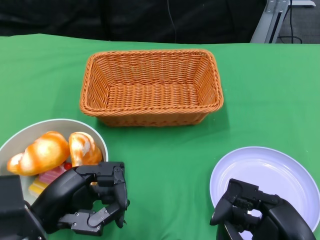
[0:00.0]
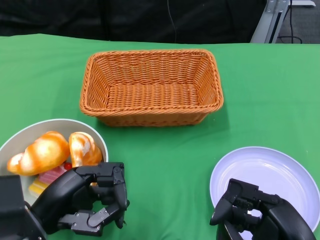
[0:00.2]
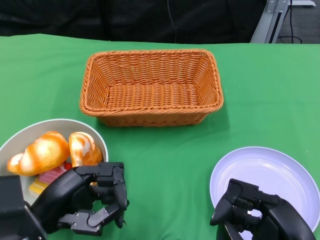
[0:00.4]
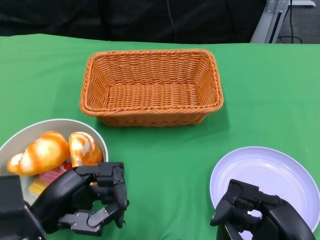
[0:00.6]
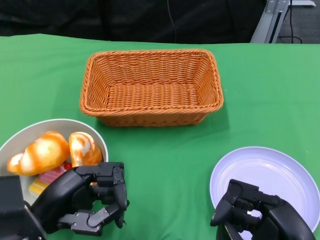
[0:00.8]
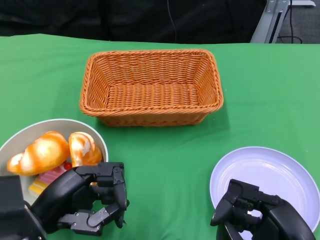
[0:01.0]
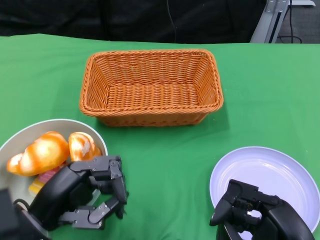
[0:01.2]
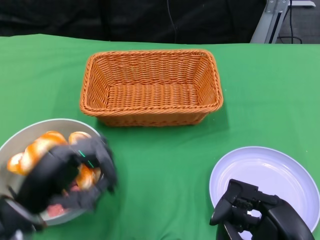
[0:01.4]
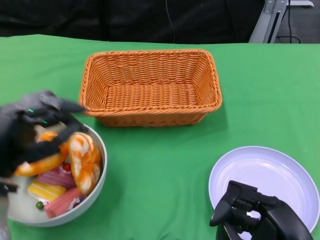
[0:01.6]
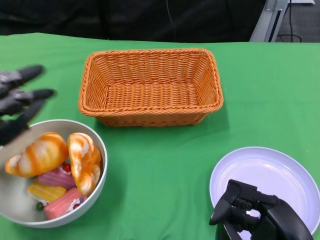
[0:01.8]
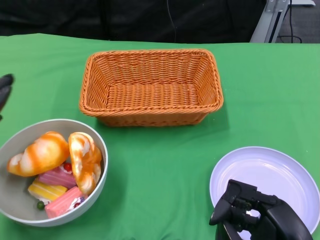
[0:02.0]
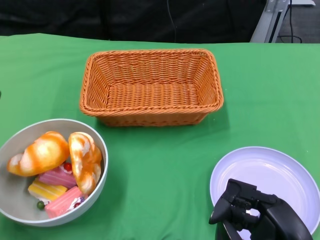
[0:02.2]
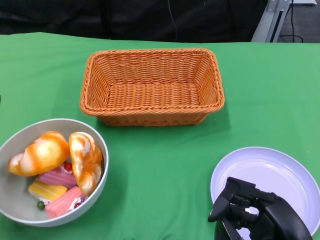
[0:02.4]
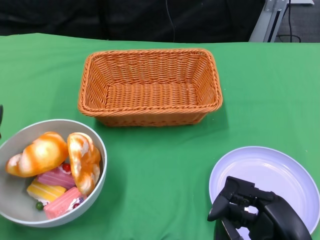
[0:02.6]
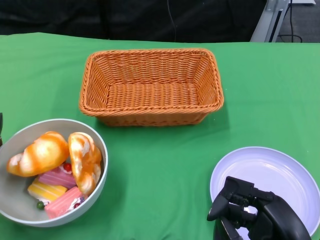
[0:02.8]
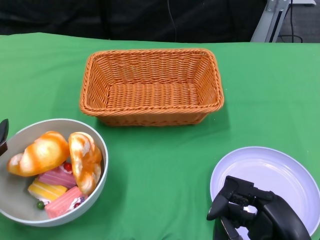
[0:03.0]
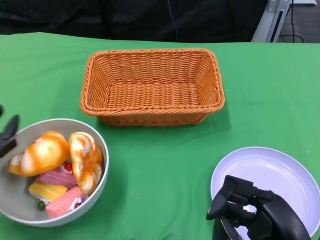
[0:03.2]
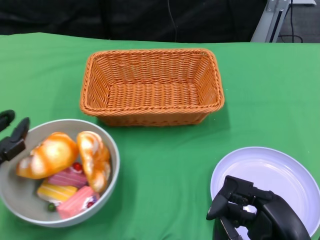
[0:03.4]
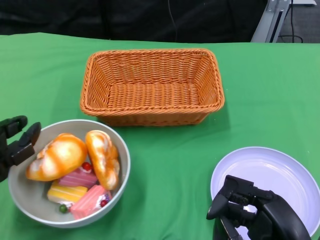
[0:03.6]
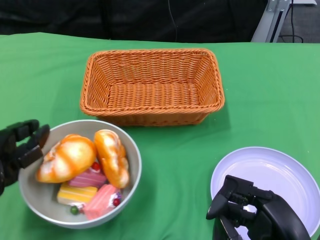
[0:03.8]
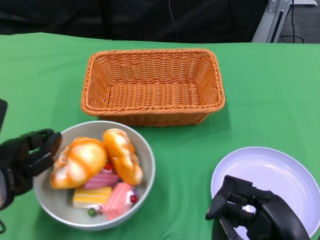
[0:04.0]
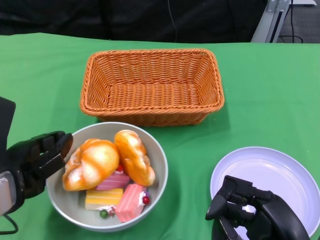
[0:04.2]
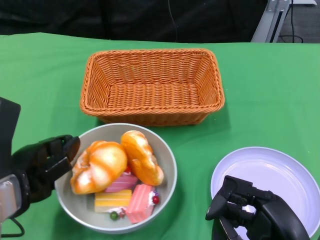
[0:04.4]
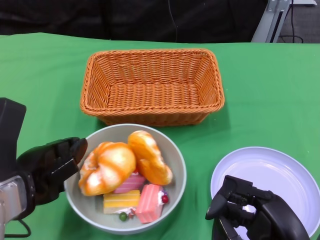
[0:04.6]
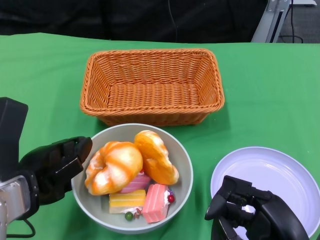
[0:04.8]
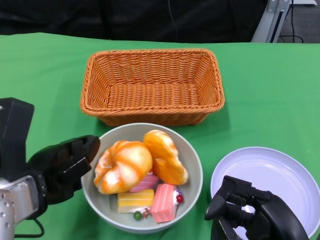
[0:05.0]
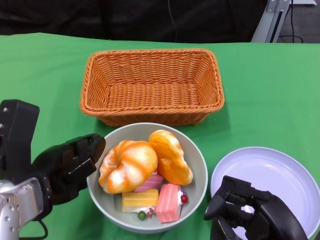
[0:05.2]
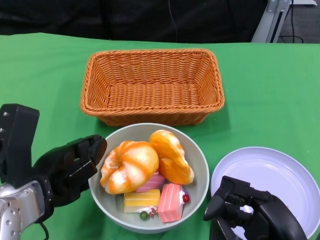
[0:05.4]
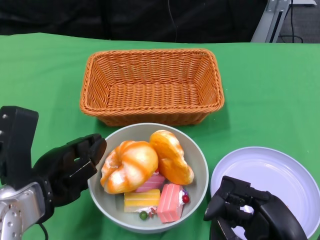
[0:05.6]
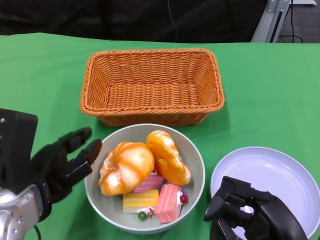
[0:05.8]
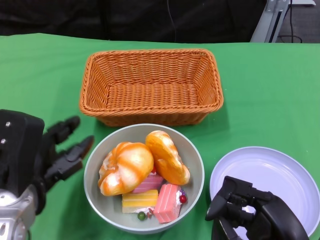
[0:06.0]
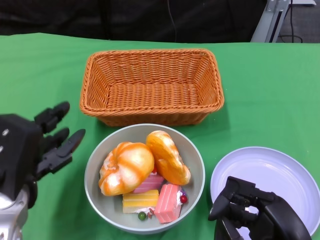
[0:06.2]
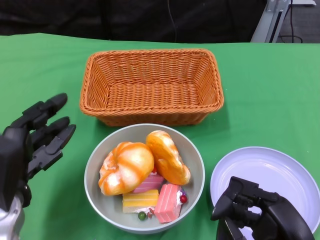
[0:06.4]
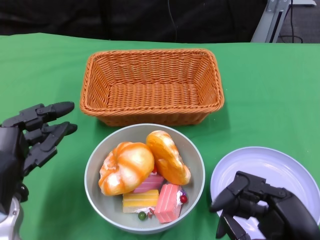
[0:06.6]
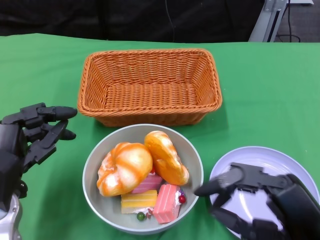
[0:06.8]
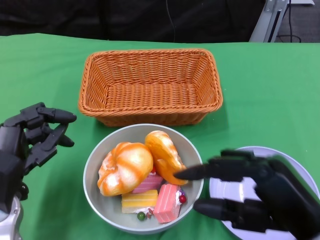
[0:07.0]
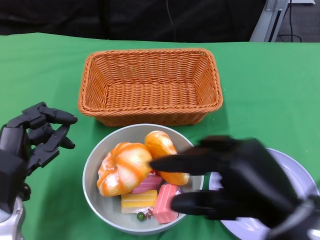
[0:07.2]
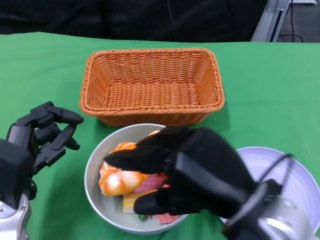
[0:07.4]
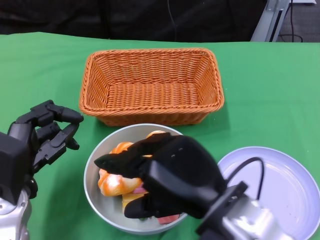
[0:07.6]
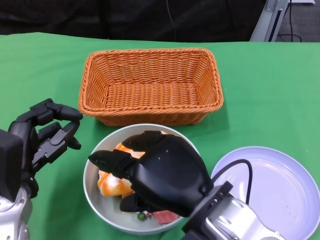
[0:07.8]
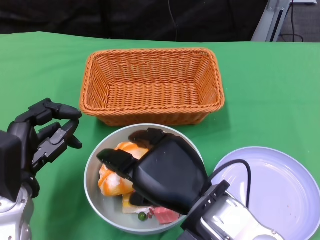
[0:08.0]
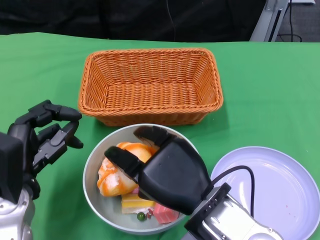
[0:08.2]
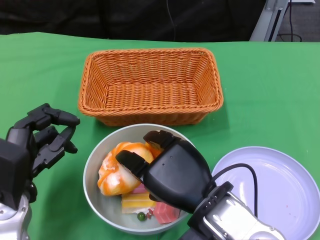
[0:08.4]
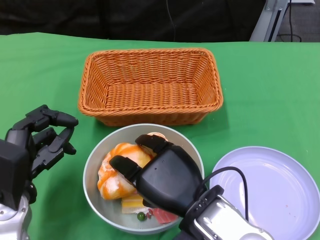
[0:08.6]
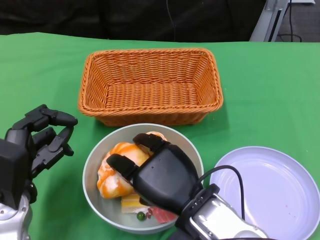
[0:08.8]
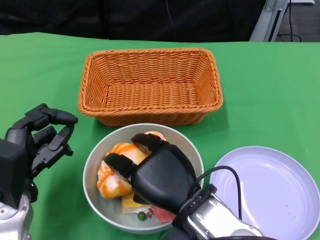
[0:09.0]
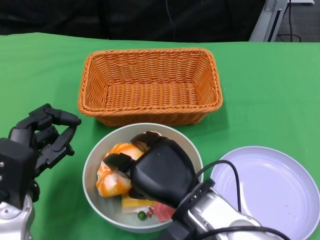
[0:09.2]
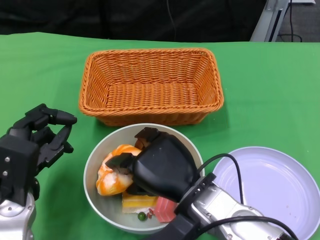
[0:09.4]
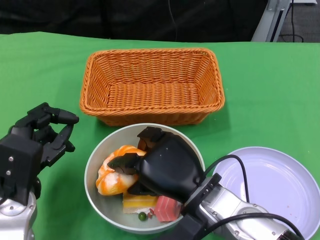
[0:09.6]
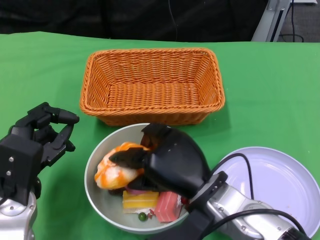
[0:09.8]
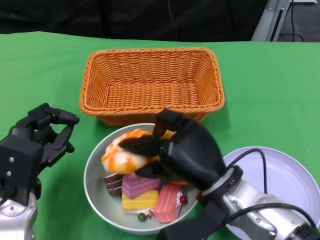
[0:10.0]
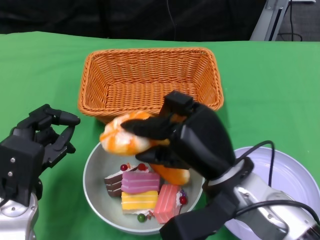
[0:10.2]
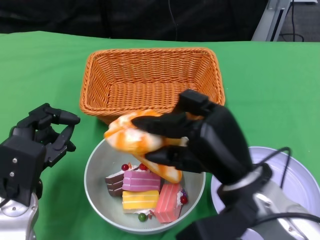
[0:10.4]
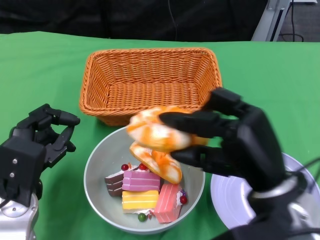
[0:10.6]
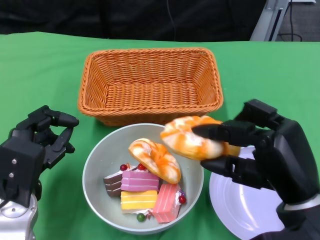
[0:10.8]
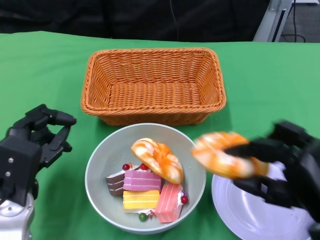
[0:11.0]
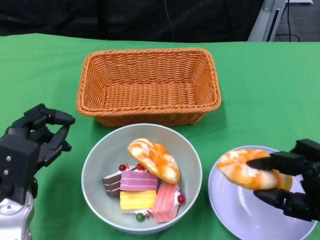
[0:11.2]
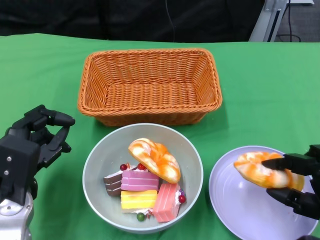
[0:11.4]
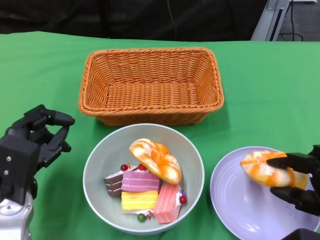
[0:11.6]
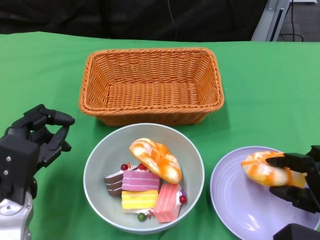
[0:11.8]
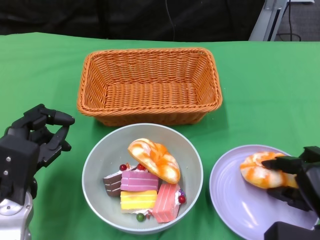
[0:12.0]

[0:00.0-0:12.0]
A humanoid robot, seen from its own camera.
Step, 0:00.0 to 0:06.0: Push the bowl to the center of the table using the left gripper.
0:01.6 to 0:03.0: The left hand ends up approximately 10 cm from where it was.
0:03.0 to 0:04.4: The left hand goes about 5 cm to the right.
0:06.0 to 0:07.6: The right hand shifts roughly 15 cm to the left and upward.
0:07.6 to 0:09.0: The right hand is displaced downward by some 5 cm.
0:09.0 to 0:10.4: The right hand moves to the right, some 5 cm.
0:10.4 to 0:12.0: The right hand is displaced to the right and downward by some 20 cm.

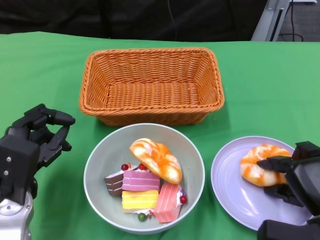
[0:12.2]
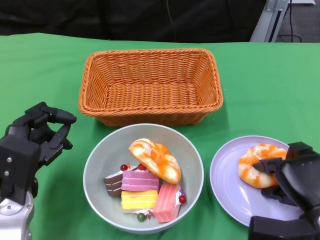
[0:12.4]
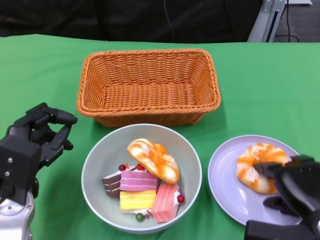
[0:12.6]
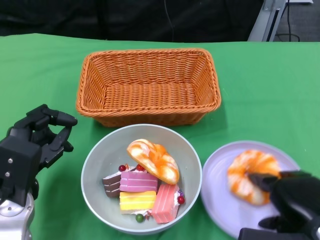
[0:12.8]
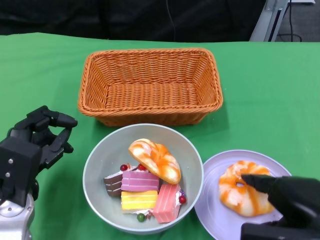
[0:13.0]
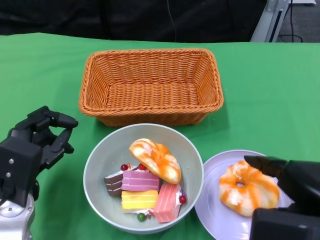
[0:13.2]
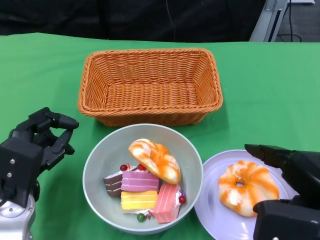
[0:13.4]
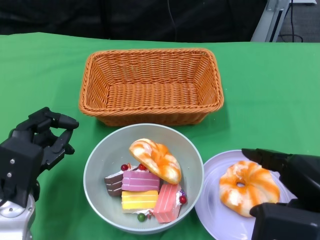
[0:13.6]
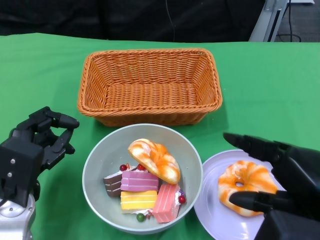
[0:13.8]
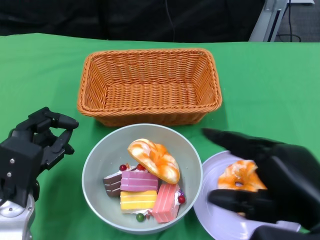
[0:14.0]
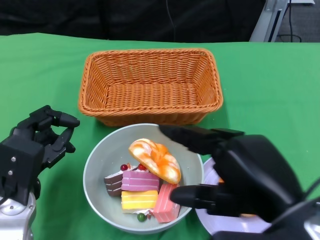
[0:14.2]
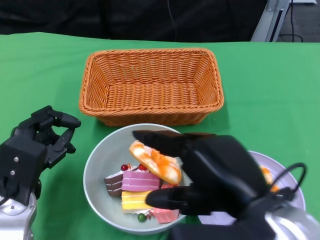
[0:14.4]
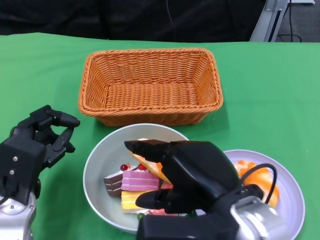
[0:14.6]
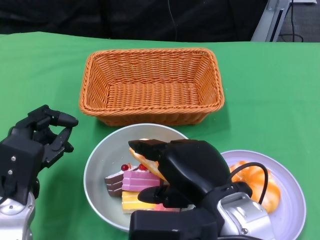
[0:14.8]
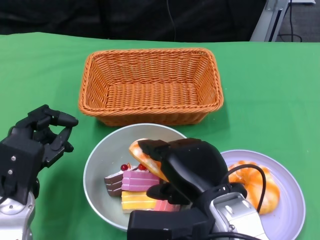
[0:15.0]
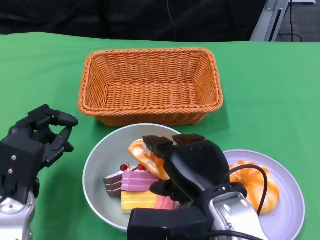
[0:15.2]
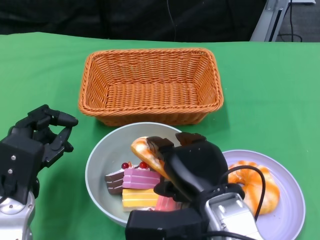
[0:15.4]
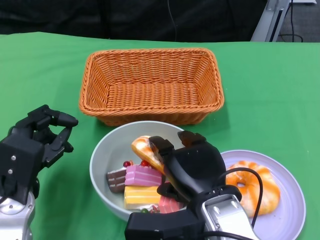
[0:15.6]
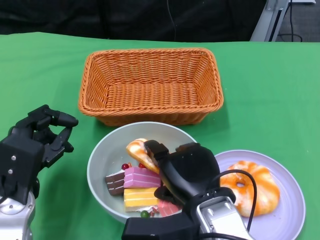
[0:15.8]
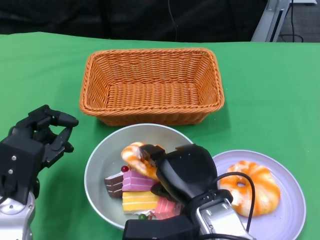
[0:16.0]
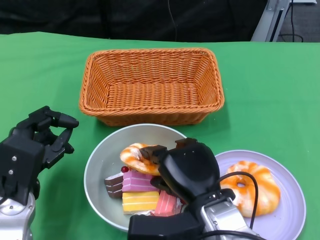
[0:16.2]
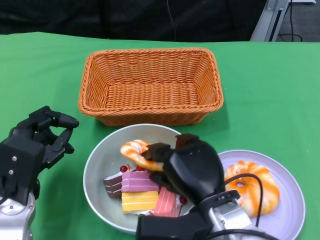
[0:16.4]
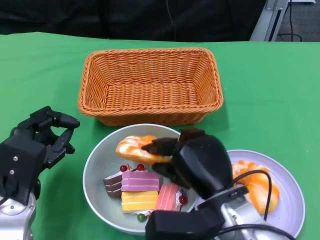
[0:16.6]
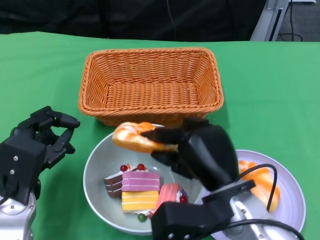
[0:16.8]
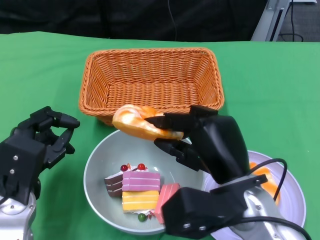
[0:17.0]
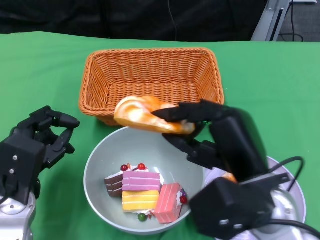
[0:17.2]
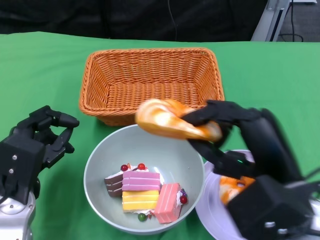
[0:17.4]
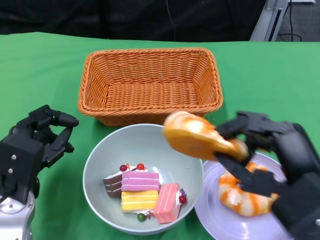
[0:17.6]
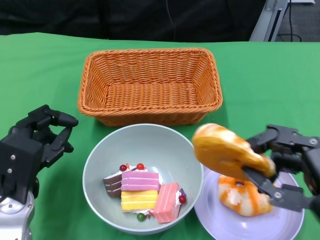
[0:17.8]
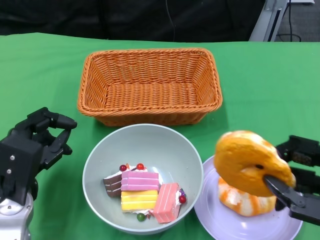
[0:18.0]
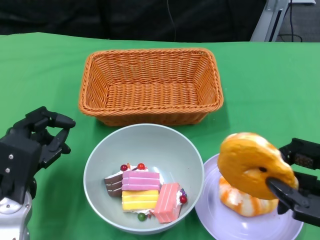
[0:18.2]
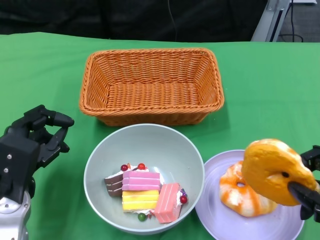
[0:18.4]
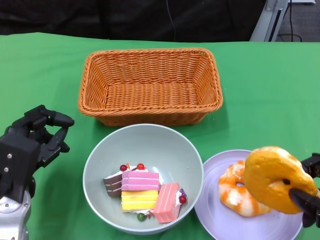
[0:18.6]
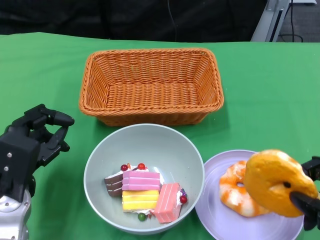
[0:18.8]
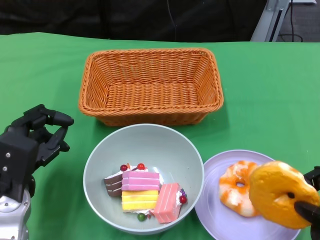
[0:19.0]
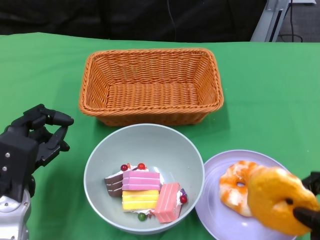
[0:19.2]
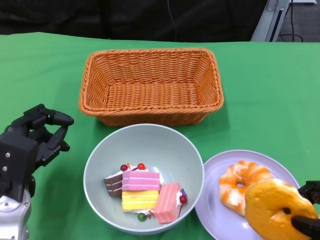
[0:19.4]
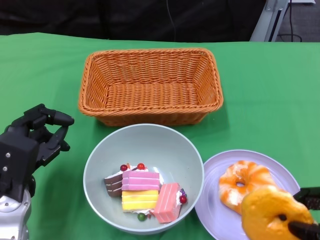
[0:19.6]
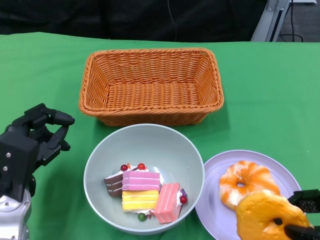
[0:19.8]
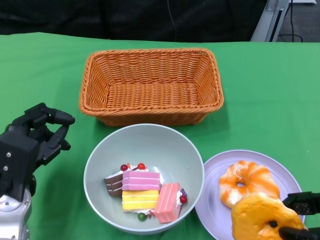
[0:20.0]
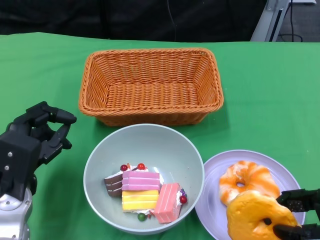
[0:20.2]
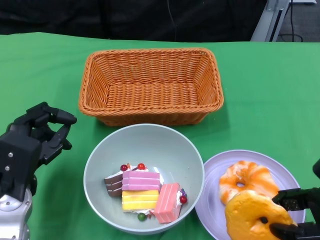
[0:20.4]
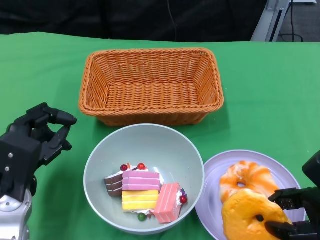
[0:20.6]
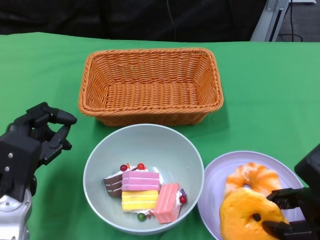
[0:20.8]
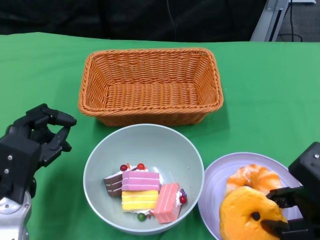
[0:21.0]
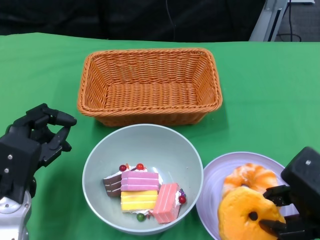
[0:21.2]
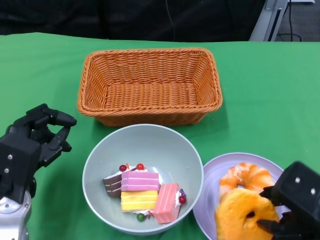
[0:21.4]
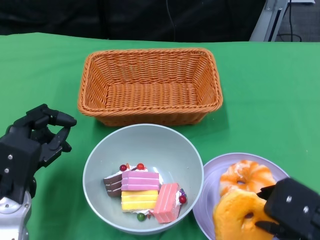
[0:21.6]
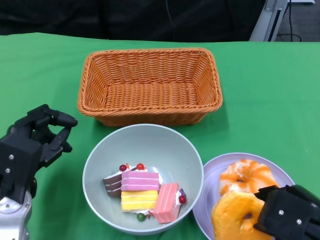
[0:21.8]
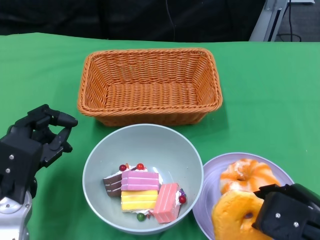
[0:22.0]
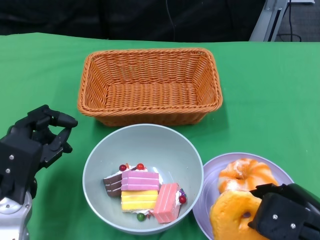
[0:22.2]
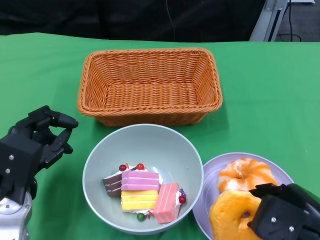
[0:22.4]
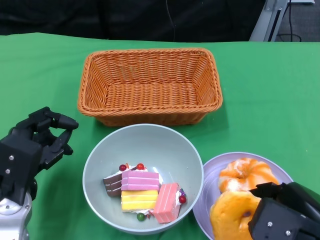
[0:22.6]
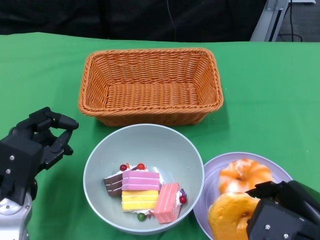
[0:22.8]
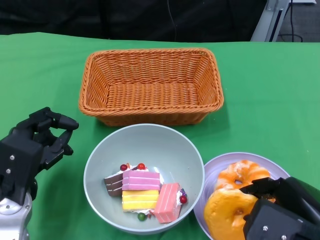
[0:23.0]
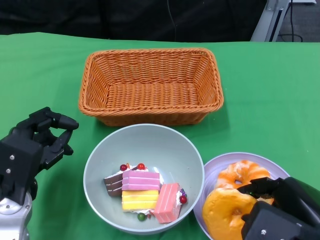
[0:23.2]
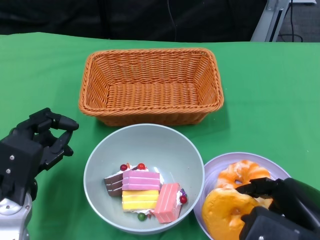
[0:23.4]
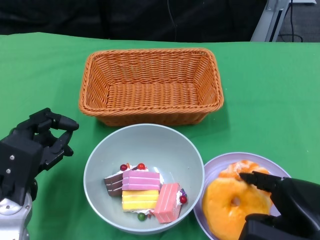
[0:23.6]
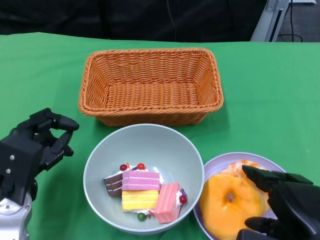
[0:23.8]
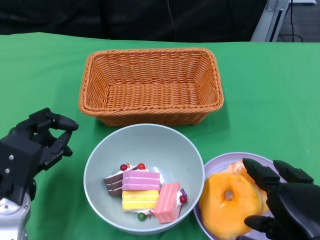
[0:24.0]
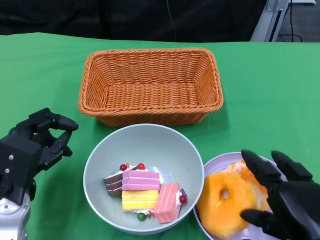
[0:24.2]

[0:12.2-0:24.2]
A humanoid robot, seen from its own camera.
Step, 0:12.2 to 0:24.0: Pick up the bread with the right gripper and place it on the plate.
0:12.2 to 0:13.8: The right hand is displaced upward and backward by some 20 cm.
0:13.8 to 0:15.2: The right hand is displaced to the left and forward by some 15 cm.
0:16.6 to 0:18.2: The right hand shifts some 20 cm to the right, backward and upward.
0:19.8 to 0:21.2: The right hand shifts by about 5 cm.
